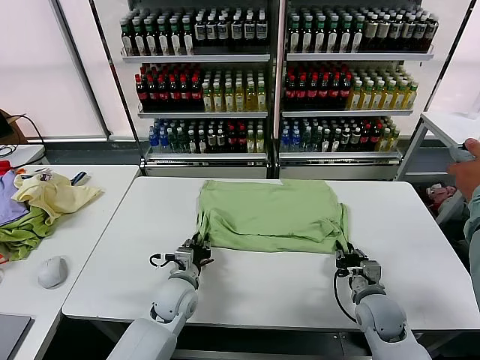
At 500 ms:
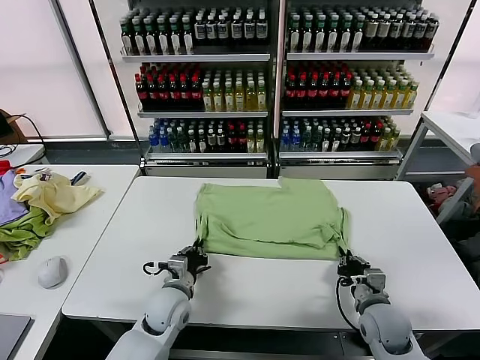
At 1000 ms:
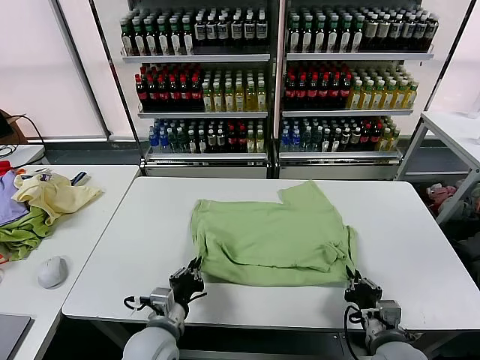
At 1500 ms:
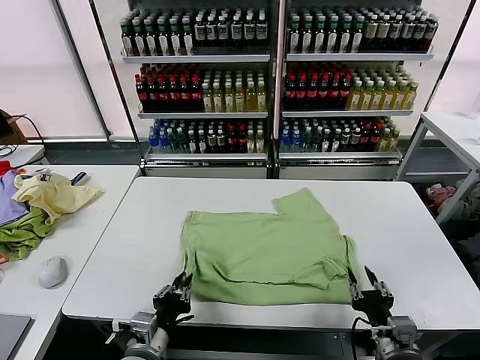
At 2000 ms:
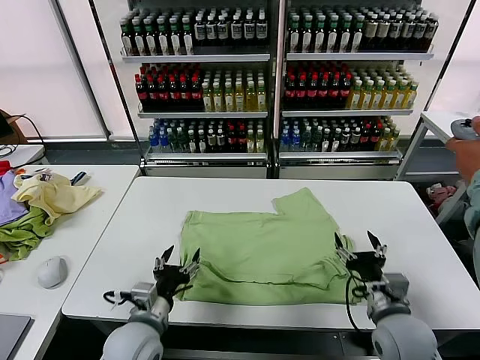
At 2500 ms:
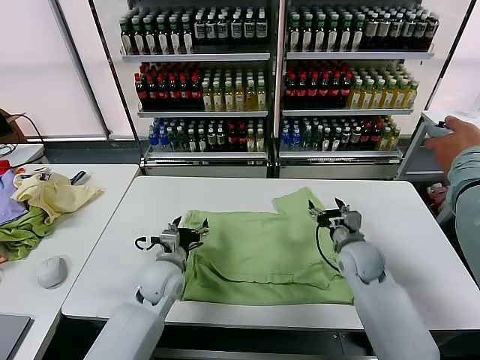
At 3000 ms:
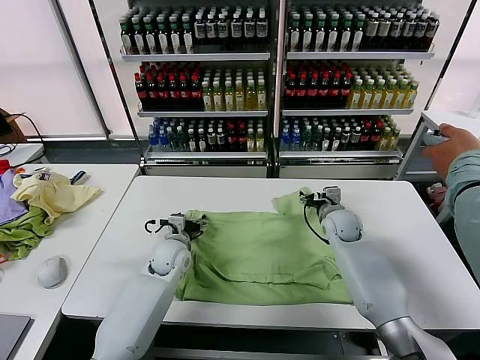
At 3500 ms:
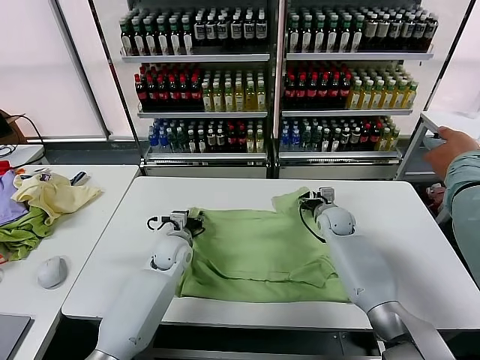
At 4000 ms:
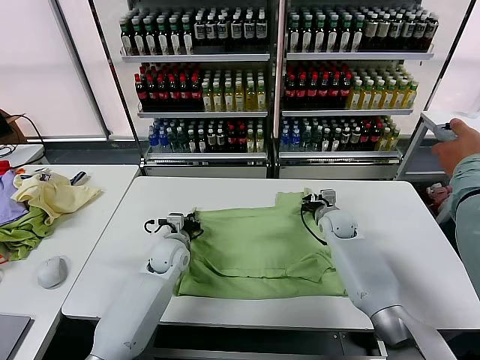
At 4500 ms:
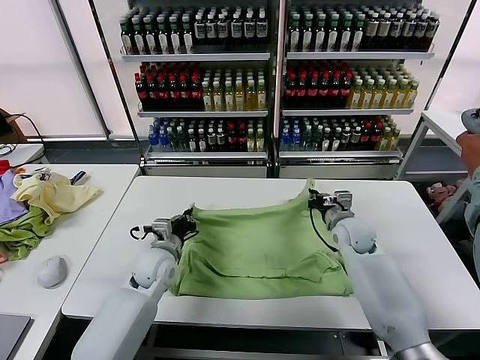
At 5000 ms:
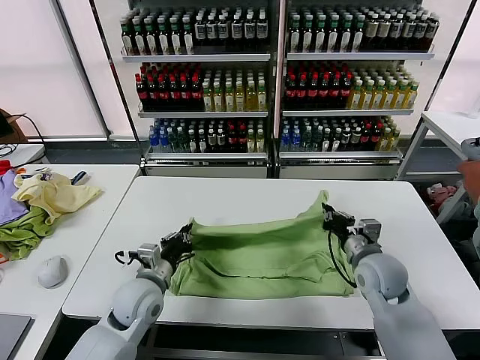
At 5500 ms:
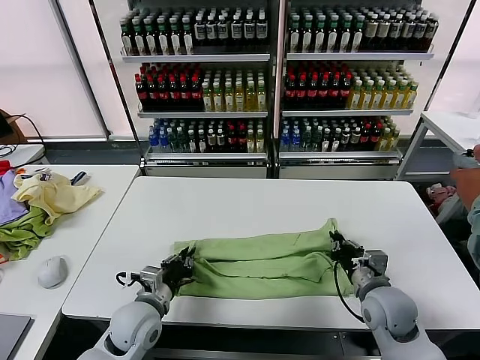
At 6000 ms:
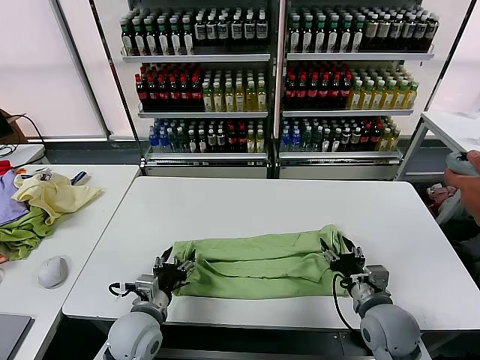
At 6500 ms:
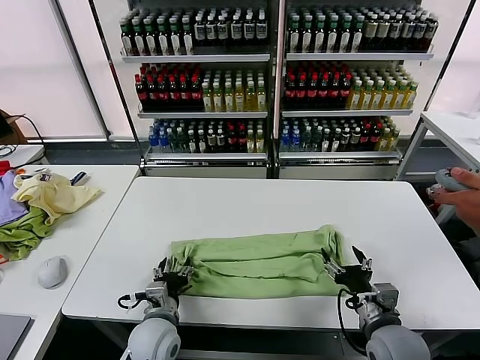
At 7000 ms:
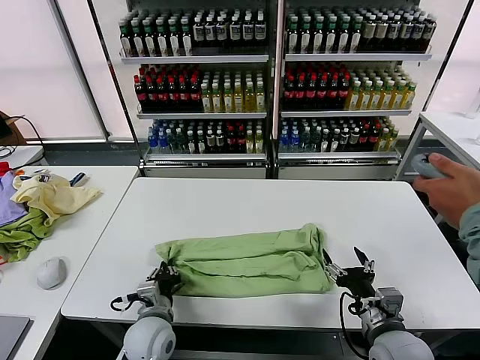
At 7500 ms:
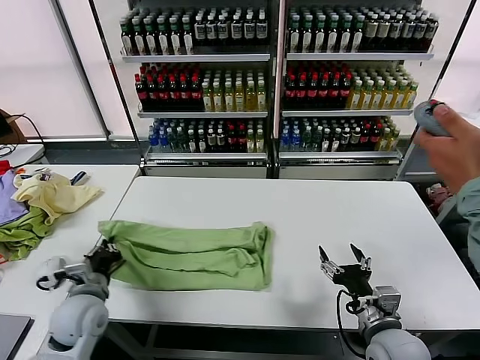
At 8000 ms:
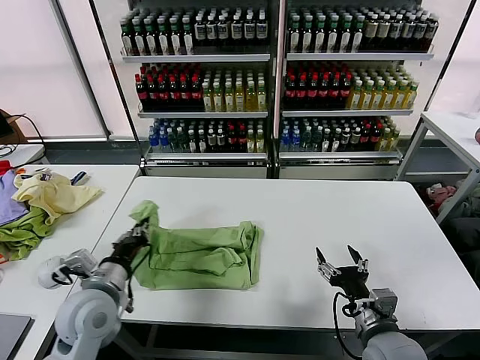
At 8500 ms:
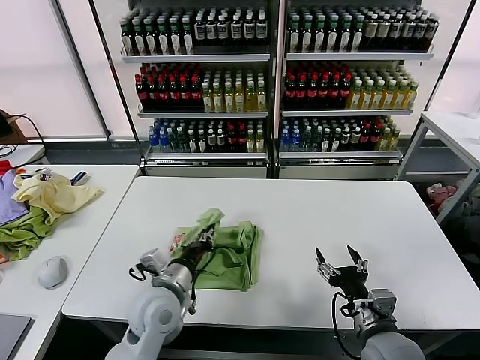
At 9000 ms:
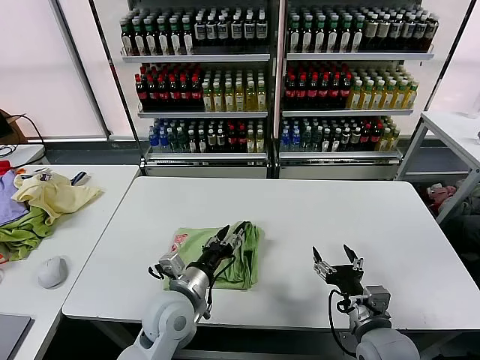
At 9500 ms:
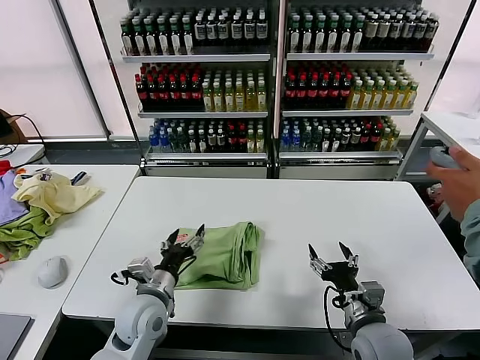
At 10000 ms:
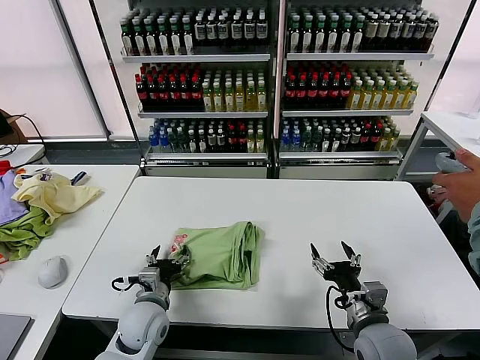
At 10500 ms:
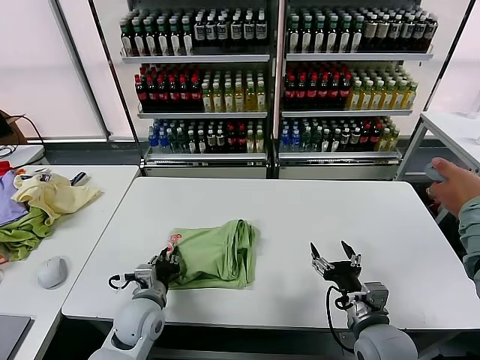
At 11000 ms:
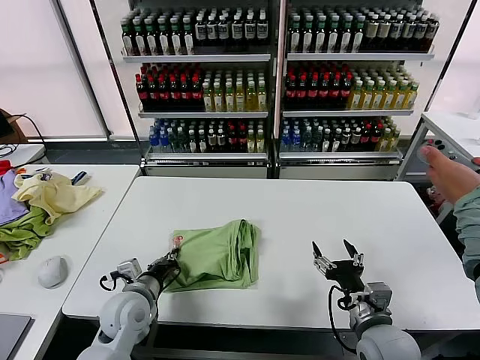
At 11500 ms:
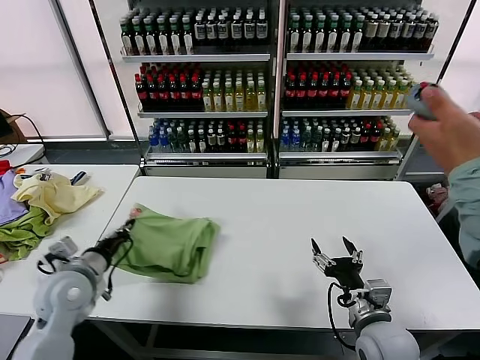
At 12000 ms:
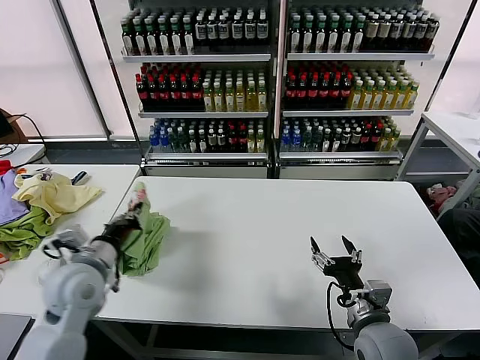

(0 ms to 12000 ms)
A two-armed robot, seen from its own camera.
Task of the whole recording: fold and organize the clothes.
Step, 0 ms - 1500 ms: Drag the clothes downward with both gripper.
Step, 2000 ms - 3500 ms: use both grippers simultaneously to clamp the upper edge of the clothing fabric.
Step, 4000 ms - 5500 ms: use both grippers to drag the upper edge of the fabric backward and fold it over the lower edge.
Step, 6000 ms - 6500 ms: use the left gripper to clamp the left edge of the fabric.
Step, 7000 ms - 8500 ms: use the left gripper to drag the left edge of the fabric to the left and folds it over the right edge.
0 ms - 2000 ms: The left gripper shifts about 15 cm backward and upward, and opens its fingers. The right gripper heads upward, covering roughly 10 cm, goes backward and returns, some 15 cm each way, and opens.
2000 ms - 4000 ms: The grippers both shift forward by approximately 25 cm. The right gripper closes up. The left gripper closes its fingers.
4000 ms - 6000 ms: Both grippers travel together backward, about 25 cm. The right gripper opens. Meanwhile the left gripper opens its fingers.
6000 ms - 8000 ms: The right gripper ends up roughly 5 cm from where it was, while the left gripper moves upward and to the left, about 10 cm, and closes its fingers.
8000 ms - 10000 ms: The left gripper is displaced downward and to the right by roughly 15 cm, and opens.
10000 ms - 12000 ms: The left gripper goes roughly 20 cm upward and to the left, and closes its fingers.

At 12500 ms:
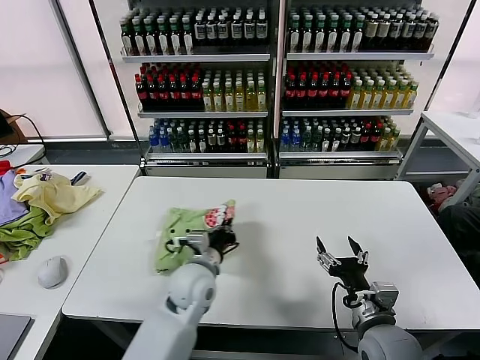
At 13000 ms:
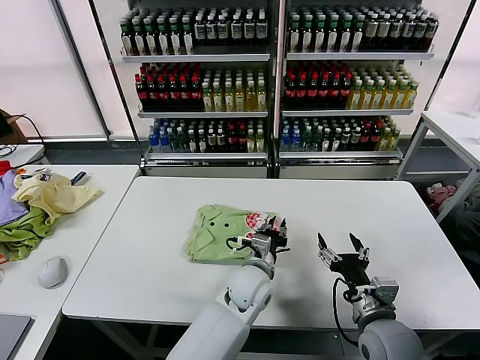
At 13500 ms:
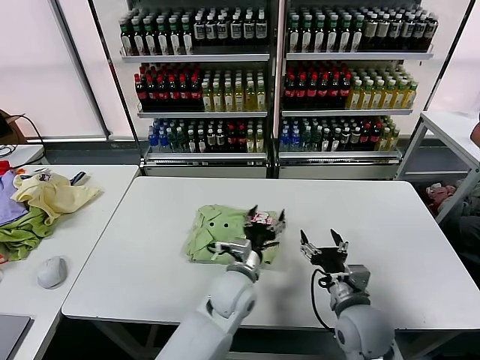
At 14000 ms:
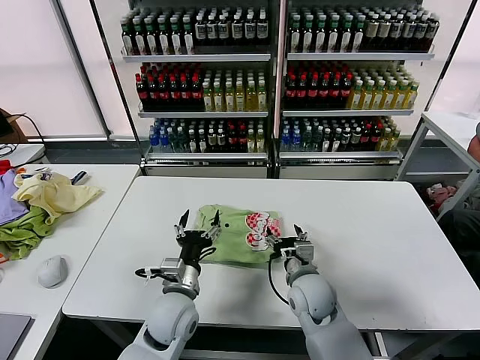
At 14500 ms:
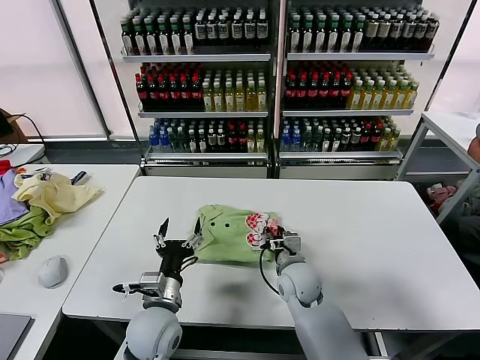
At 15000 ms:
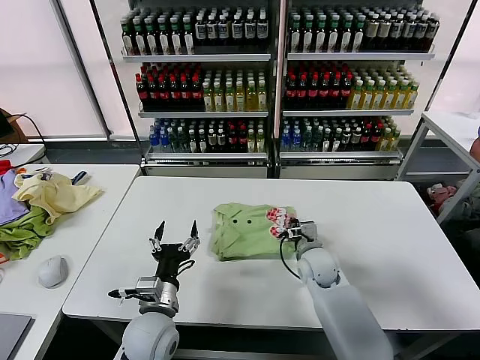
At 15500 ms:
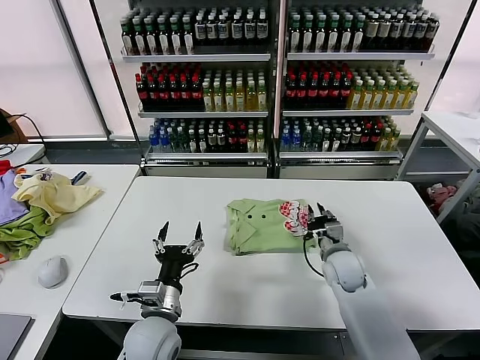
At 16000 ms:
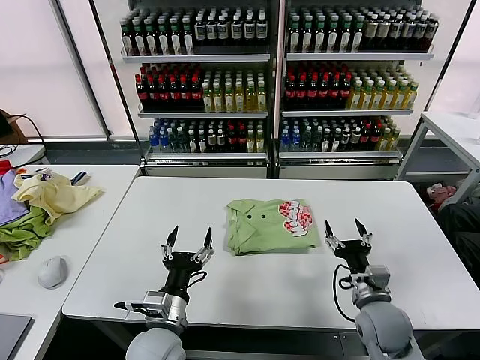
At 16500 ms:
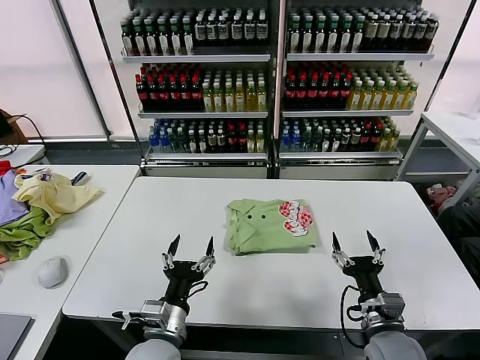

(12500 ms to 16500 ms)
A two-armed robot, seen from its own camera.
Task of the whole recording: fold and organize the clothes.
Step, 13500 ms - 15000 ms: Drag the clothes to the center of the table.
12500 ms - 14500 ms: The right gripper heads forward and to the left, covering approximately 20 cm, and closes up. The left gripper goes some 10 cm backward, moves roughly 15 cm to the right and comes back, and opens up.
14500 ms - 16500 ms: The right gripper moves backward and to the right, approximately 20 cm, and opens up; the left gripper heads backward, covering about 5 cm.
